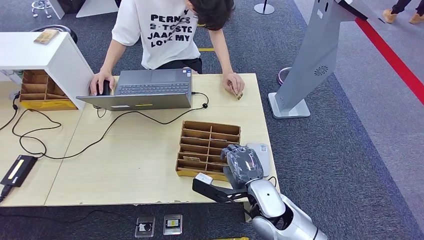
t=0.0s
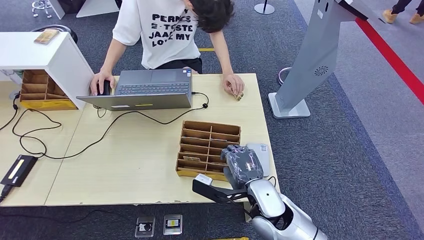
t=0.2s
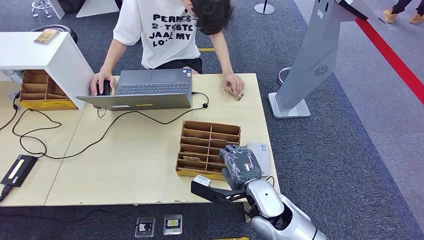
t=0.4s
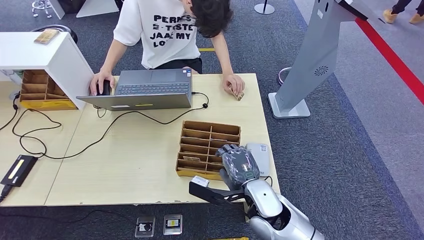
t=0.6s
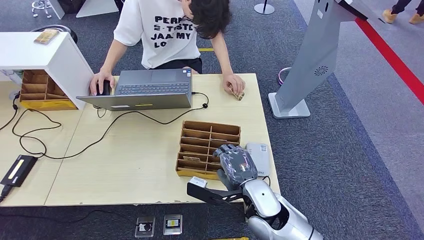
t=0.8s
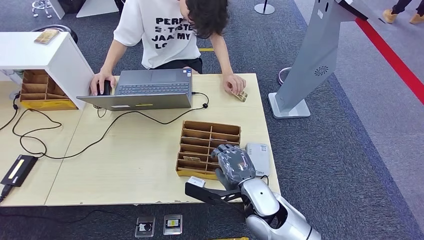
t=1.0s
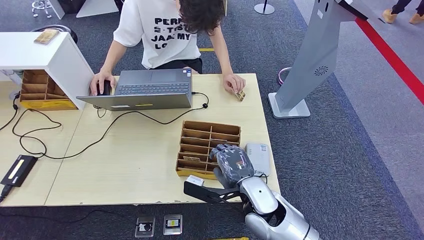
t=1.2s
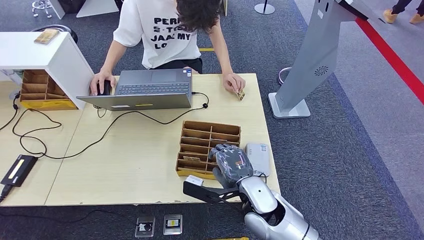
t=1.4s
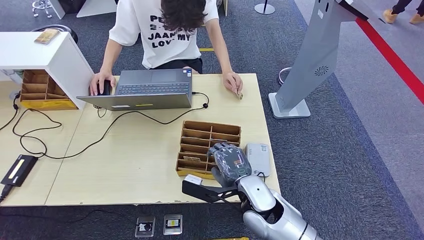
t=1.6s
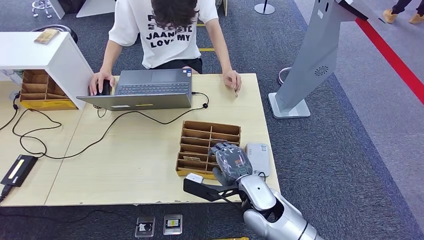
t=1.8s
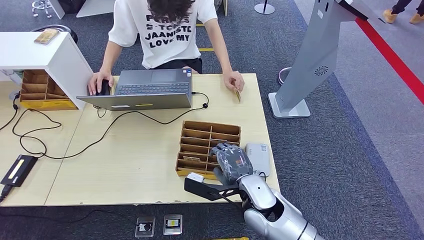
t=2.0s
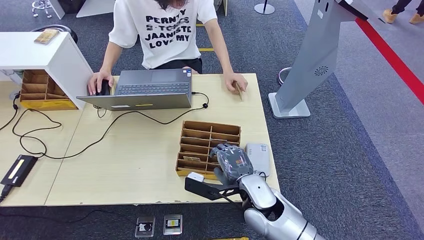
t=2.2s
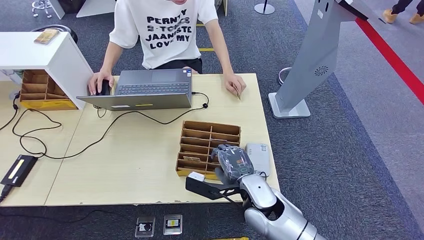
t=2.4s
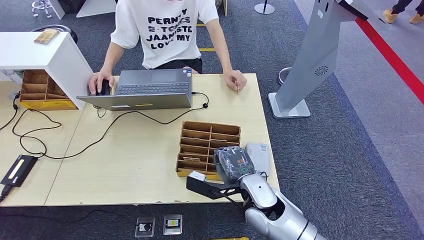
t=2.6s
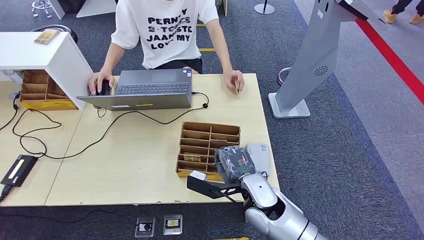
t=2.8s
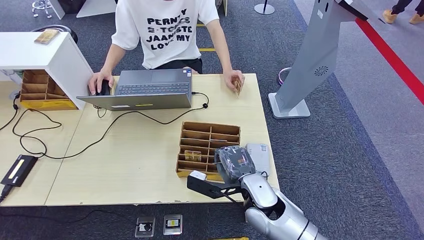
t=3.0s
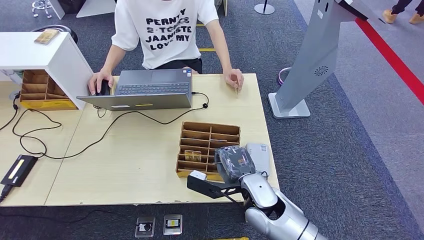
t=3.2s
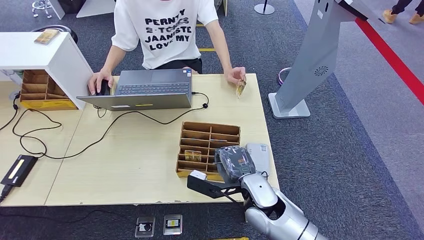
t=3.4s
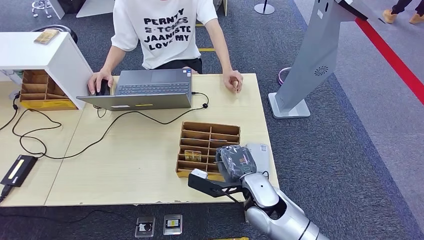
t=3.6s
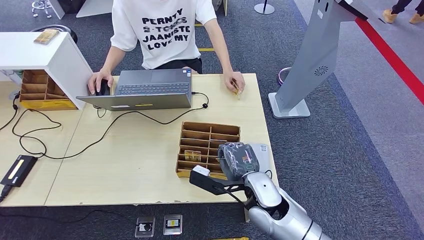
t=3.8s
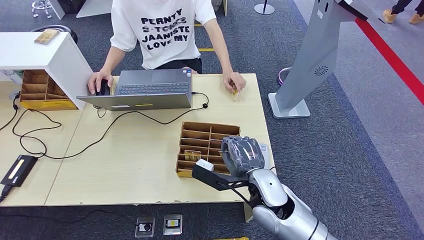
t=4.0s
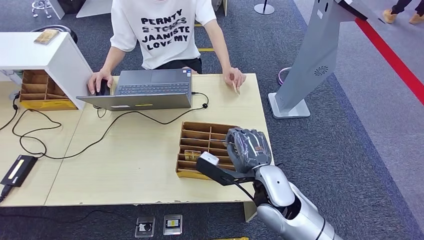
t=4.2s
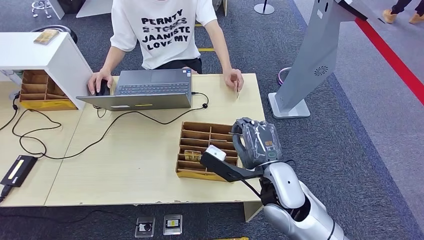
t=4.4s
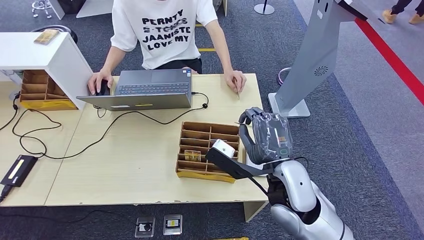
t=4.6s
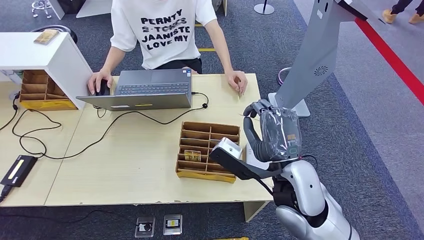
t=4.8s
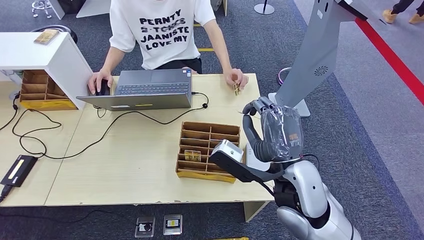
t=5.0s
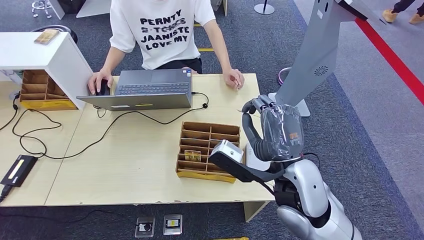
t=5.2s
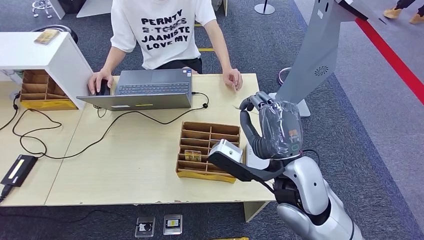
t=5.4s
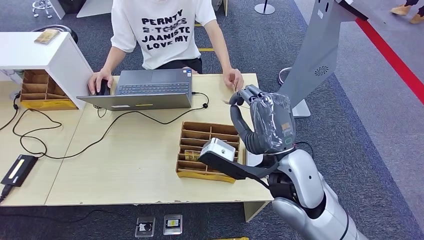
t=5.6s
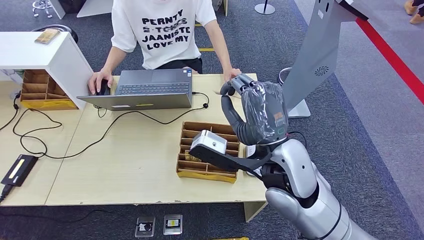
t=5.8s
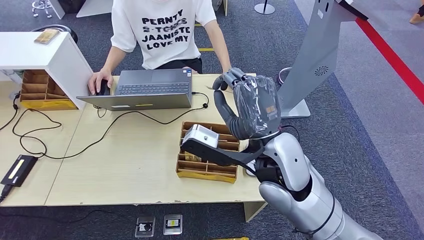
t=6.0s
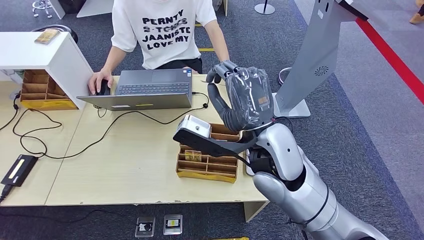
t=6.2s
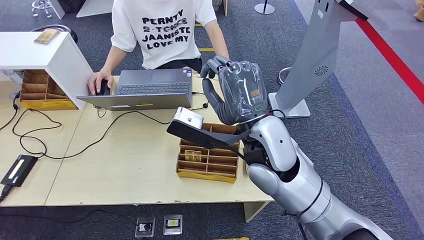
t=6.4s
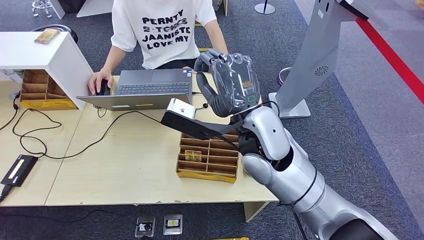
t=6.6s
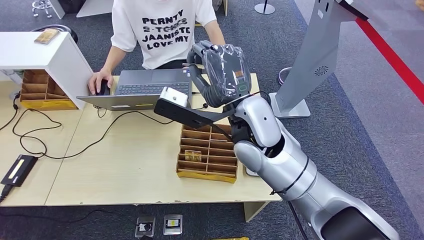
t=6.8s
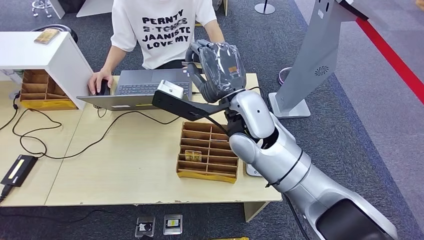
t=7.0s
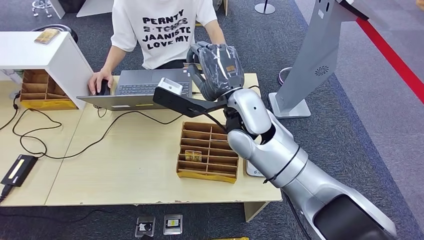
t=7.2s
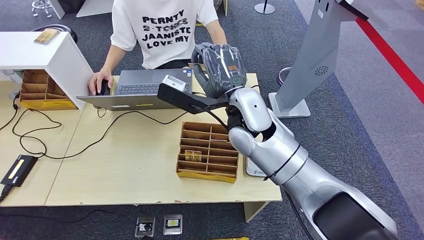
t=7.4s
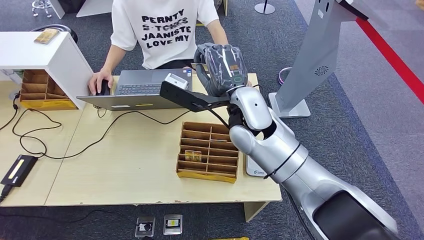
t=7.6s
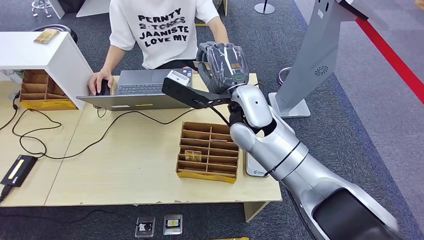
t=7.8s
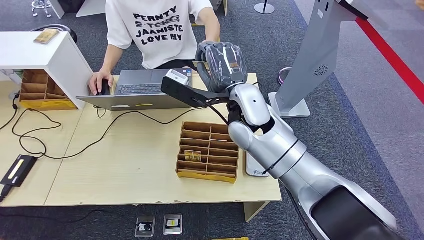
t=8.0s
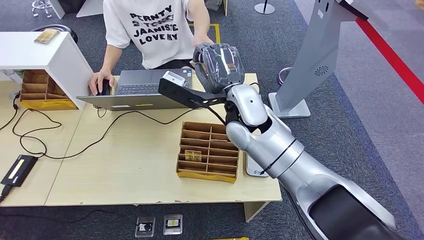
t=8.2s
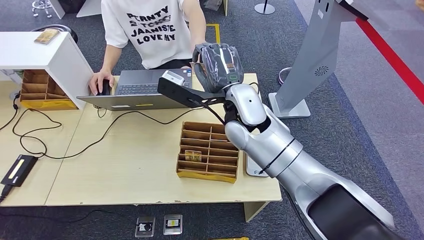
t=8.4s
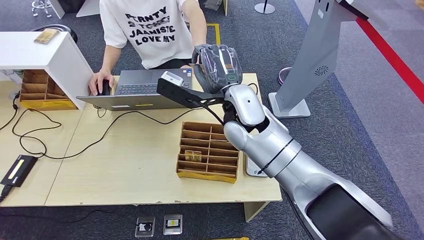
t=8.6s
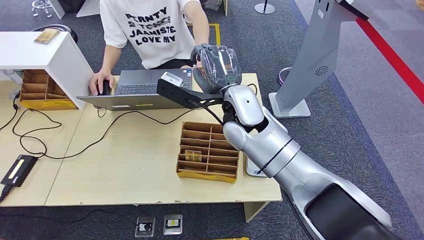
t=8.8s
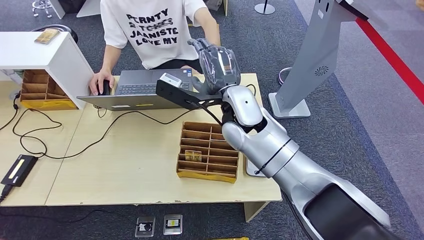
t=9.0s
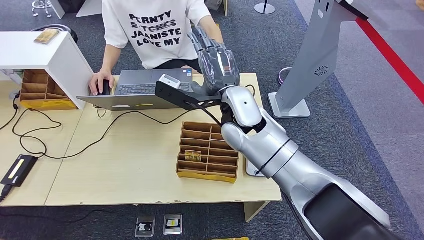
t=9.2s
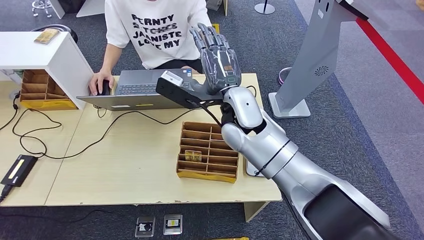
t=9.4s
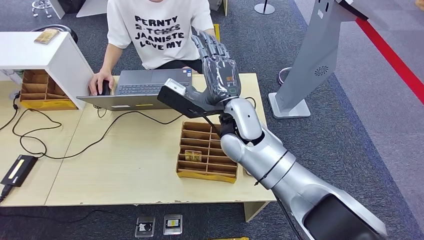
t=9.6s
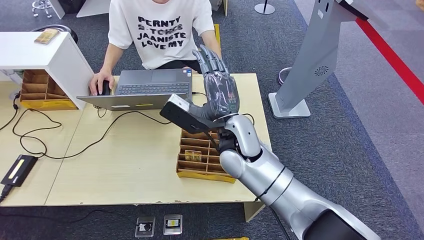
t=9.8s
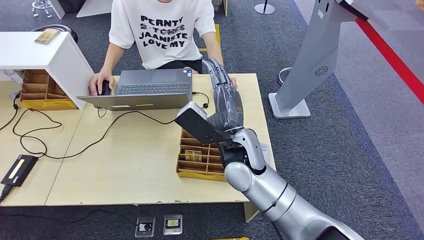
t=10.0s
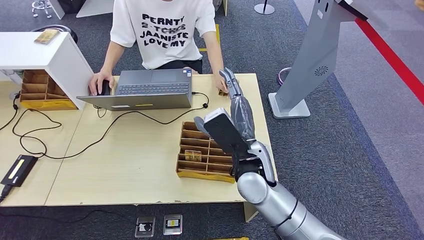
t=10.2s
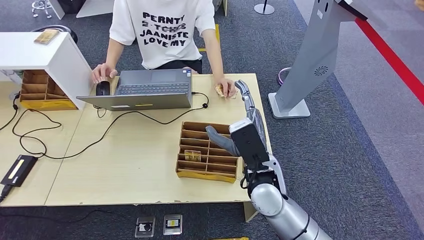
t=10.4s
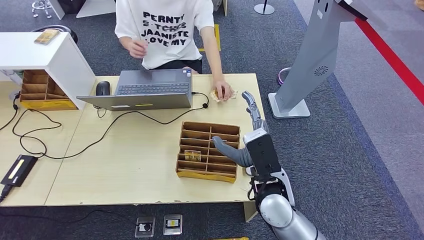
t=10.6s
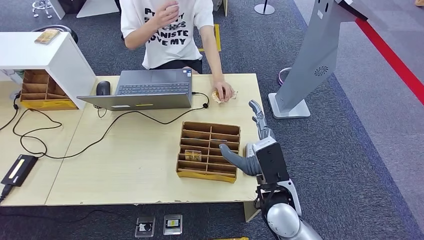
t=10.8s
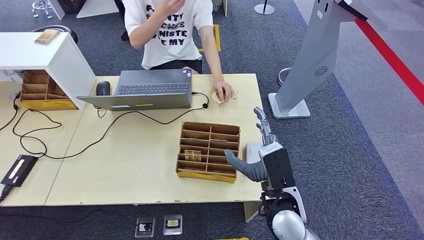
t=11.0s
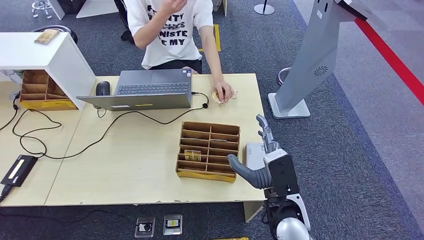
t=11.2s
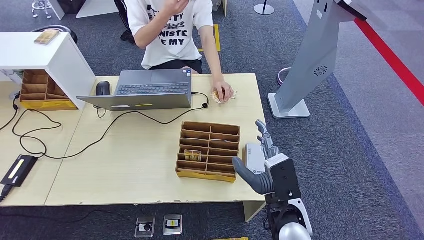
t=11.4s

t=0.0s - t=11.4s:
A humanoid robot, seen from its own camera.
Step, t=2.0s - t=5.8s: Pick up the room key from the key card box.
Step, t=6.0s - t=11.4s: Hand the room key to the person.
t=0.0s - t=2.8s: The hands make only small movements.
t=2.8s - t=4.2s: The right hand shifts about 5 cm upward.
t=4.2s - t=5.6s: The right hand is displaced upward by some 10 cm.
t=5.6s - t=7.2s: The right hand heads forward and to the left, covering approximately 15 cm.
t=7.2s - t=8.6s: The hands make only small movements.
t=8.6s - t=10.0s: The right hand goes roughly 10 cm downward and backward.
t=10.0s - t=11.4s: The right hand shifts about 15 cm backward, to the right and downward.
